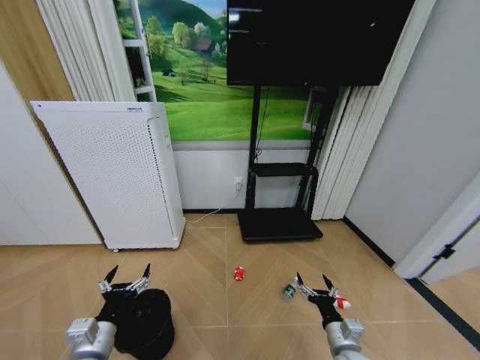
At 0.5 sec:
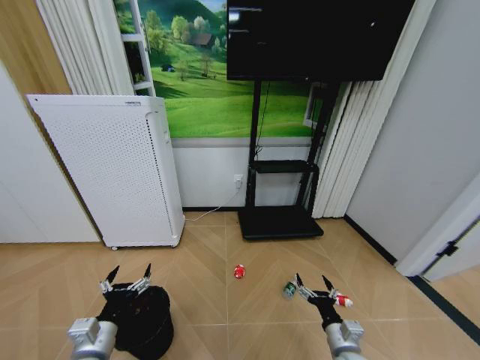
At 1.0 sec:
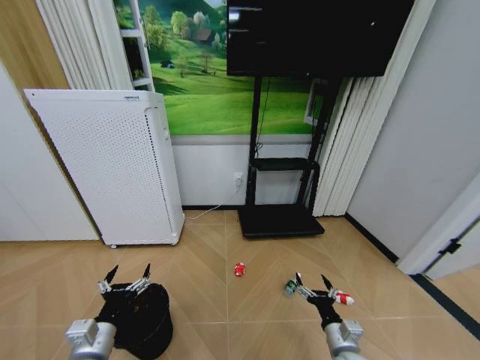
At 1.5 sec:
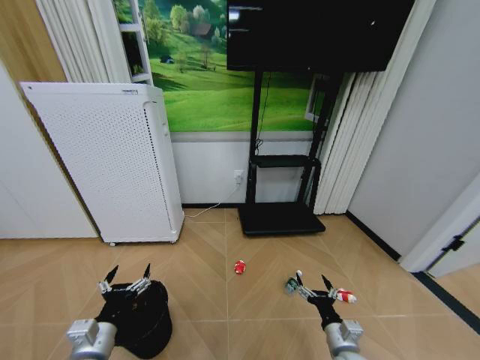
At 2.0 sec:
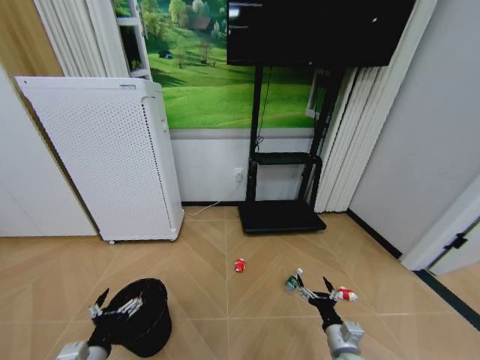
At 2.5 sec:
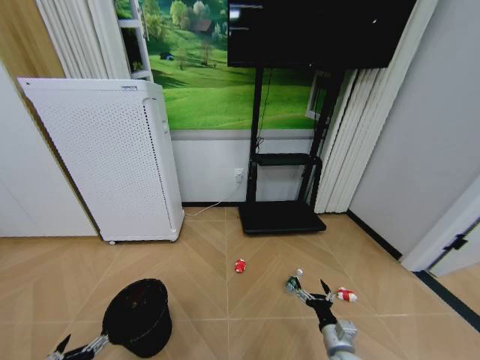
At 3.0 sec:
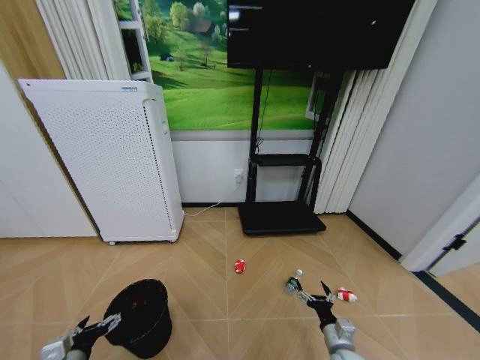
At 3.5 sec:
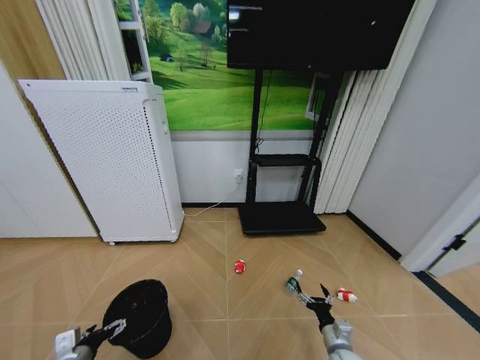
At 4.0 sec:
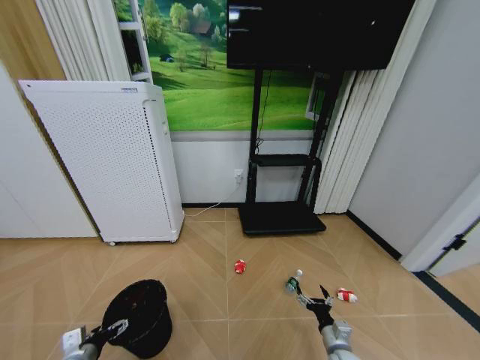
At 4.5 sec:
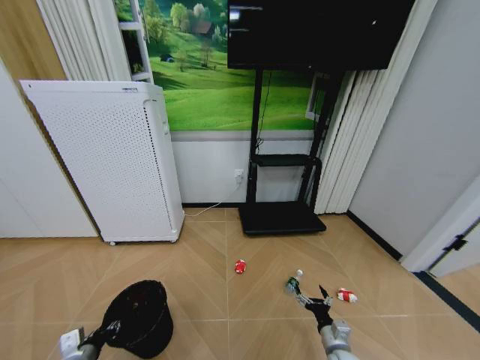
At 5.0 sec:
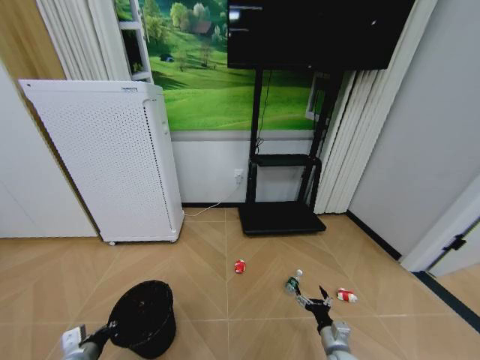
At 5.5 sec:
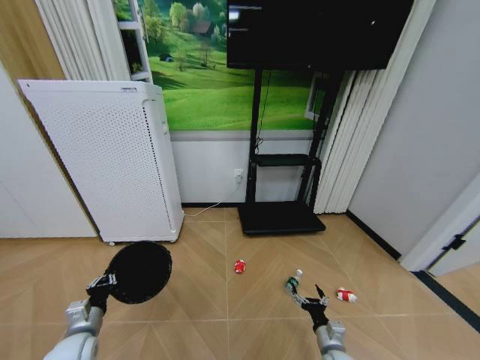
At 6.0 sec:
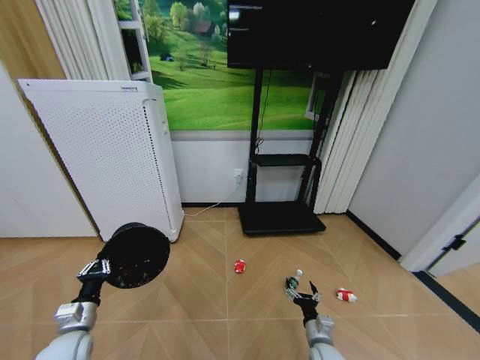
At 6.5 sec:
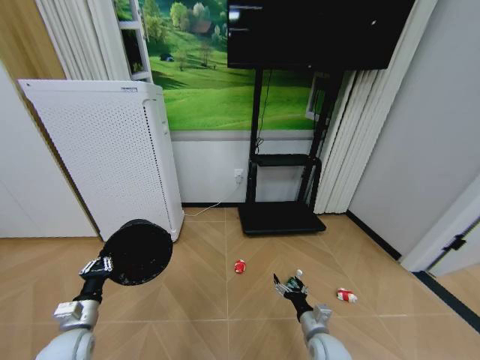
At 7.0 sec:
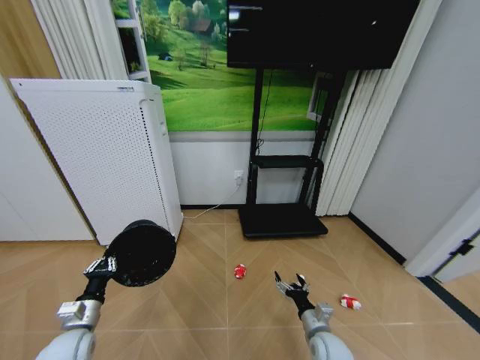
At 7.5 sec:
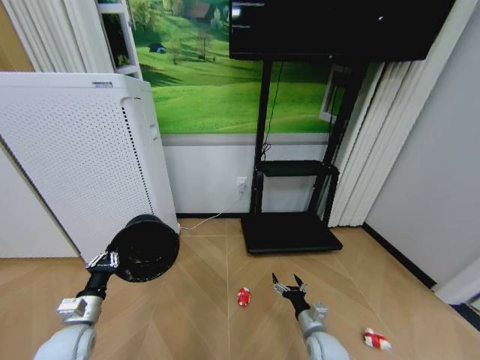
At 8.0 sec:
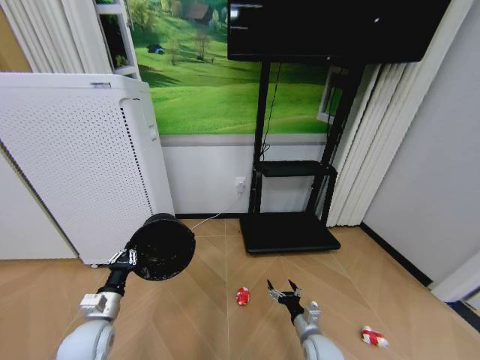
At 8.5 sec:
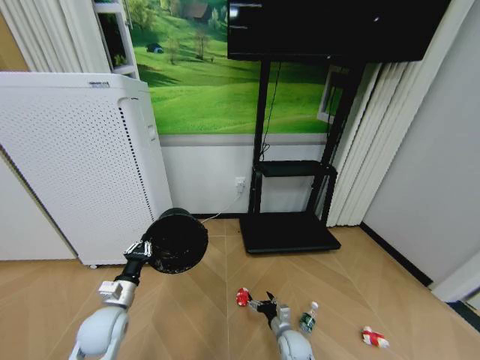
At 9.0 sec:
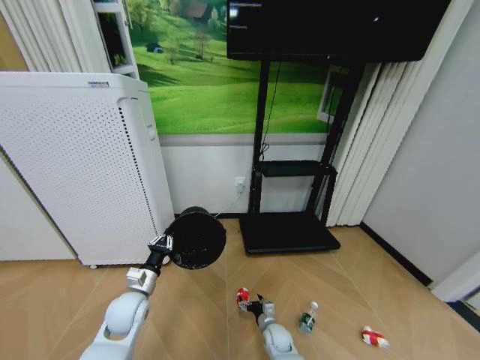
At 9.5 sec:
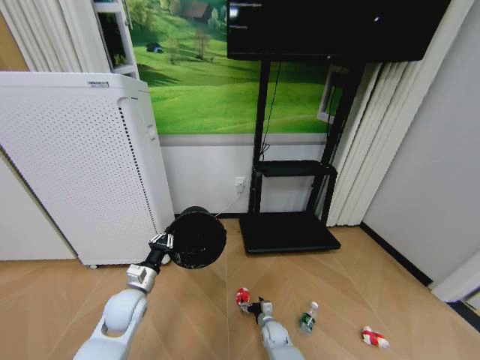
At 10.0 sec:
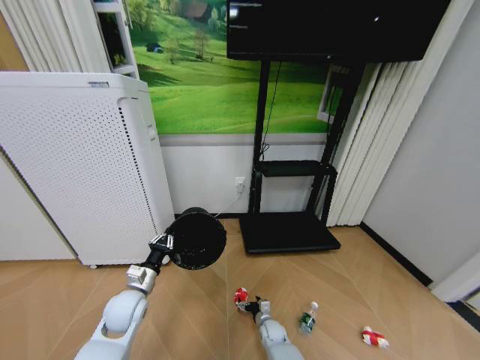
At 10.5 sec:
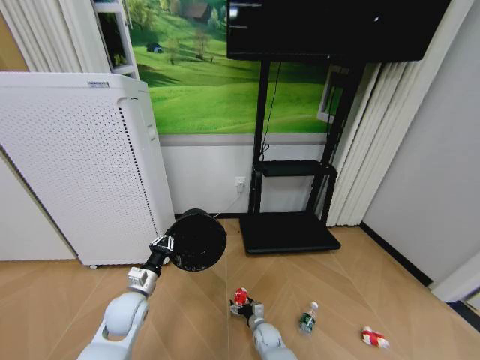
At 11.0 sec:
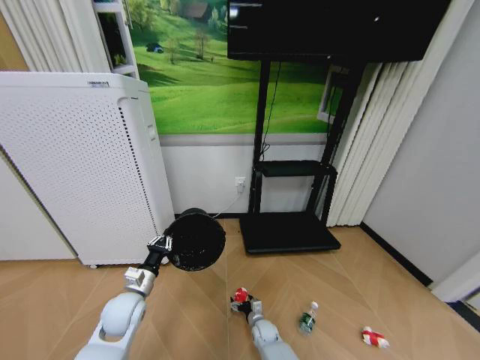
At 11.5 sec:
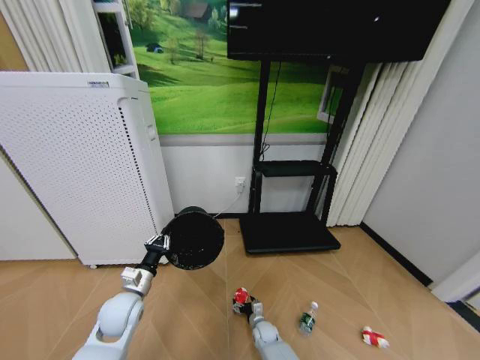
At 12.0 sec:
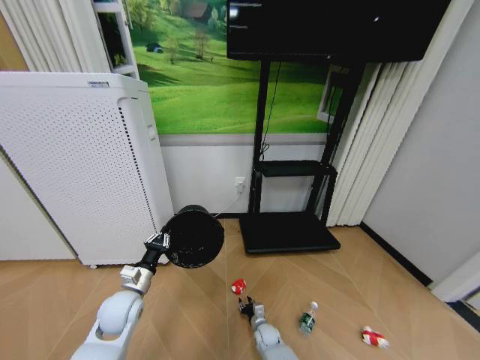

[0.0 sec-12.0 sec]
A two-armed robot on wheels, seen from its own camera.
Task of the whole recording: Pick up the trash bin and place the garbage on the floor into it.
0.0 sec to 2.0 sec: The grippers make only small movements.
2.0 sec to 4.0 sec: The right gripper shifts approximately 5 cm downward; the left gripper goes approximately 10 cm to the left and downward.
4.0 sec to 6.0 sec: The left gripper moves about 5 cm, and closes, while the right gripper goes roughly 5 cm to the left.
6.0 sec to 8.0 sec: The left gripper shifts about 5 cm to the right.
8.0 sec to 10.0 sec: The left gripper heads forward and to the right, covering some 10 cm. The right gripper shifts roughly 20 cm downward, to the left and forward.
10.0 sec to 12.0 sec: The right gripper closes.

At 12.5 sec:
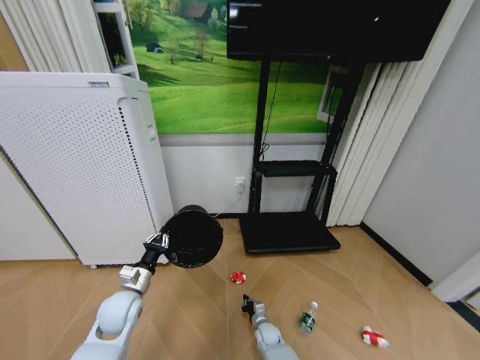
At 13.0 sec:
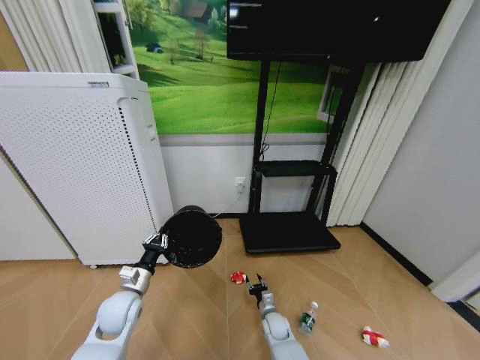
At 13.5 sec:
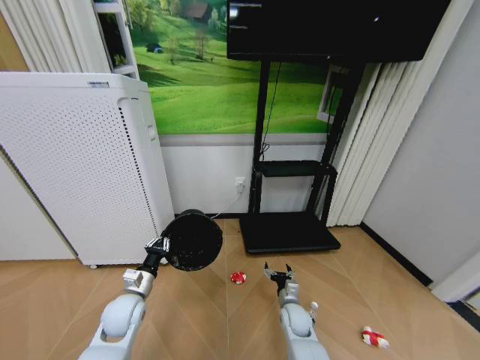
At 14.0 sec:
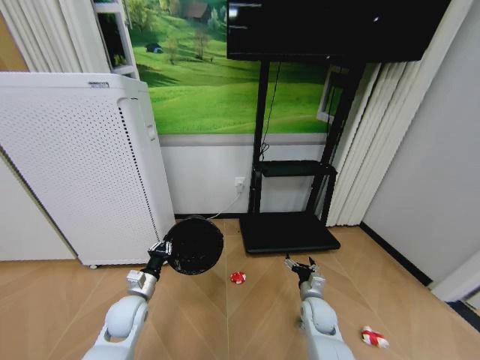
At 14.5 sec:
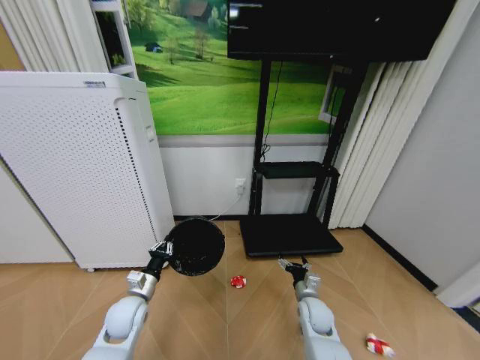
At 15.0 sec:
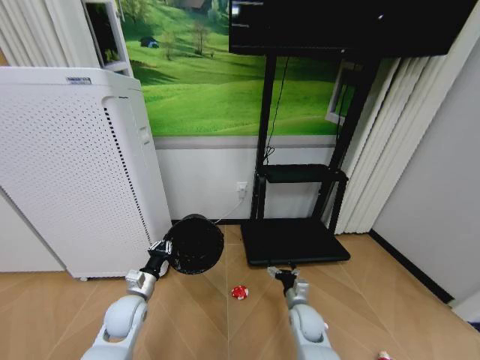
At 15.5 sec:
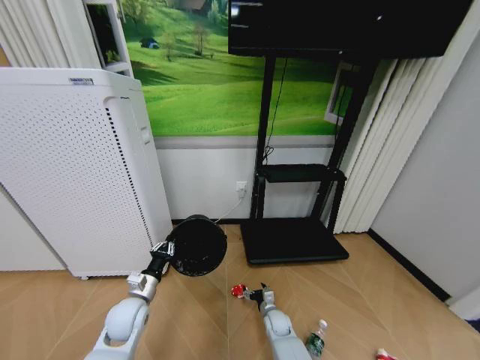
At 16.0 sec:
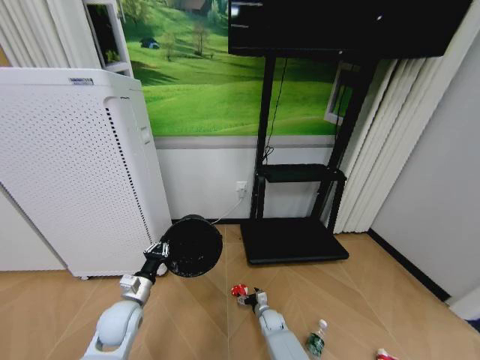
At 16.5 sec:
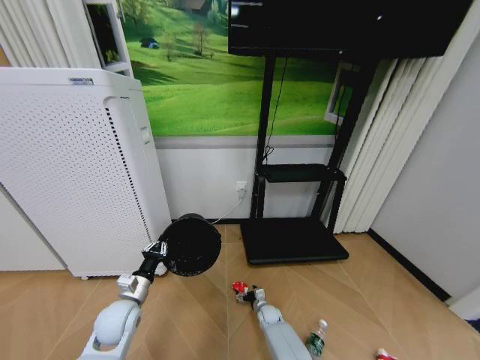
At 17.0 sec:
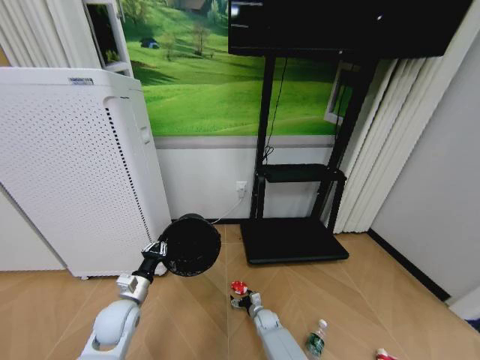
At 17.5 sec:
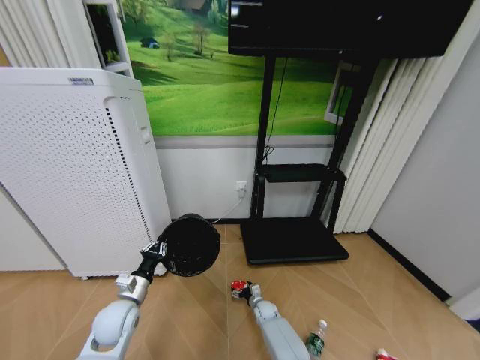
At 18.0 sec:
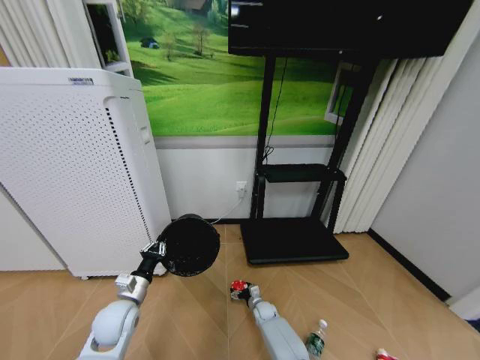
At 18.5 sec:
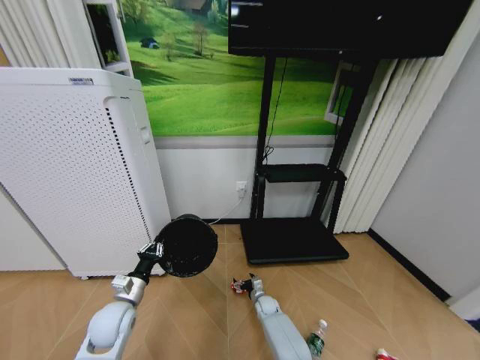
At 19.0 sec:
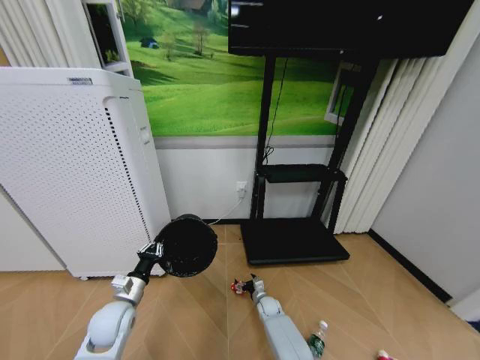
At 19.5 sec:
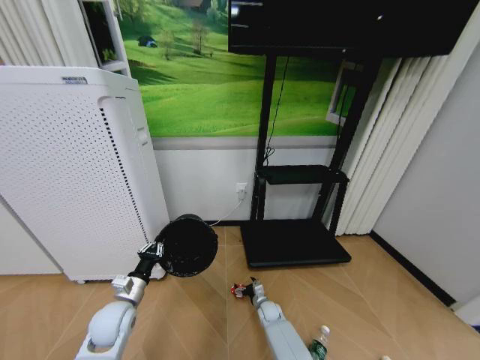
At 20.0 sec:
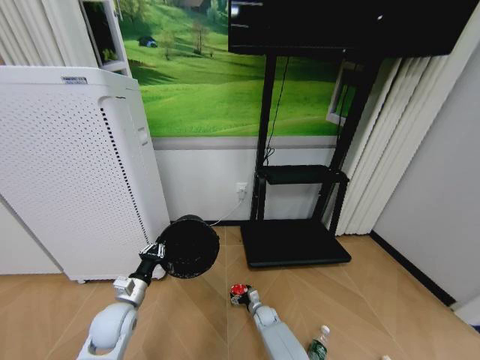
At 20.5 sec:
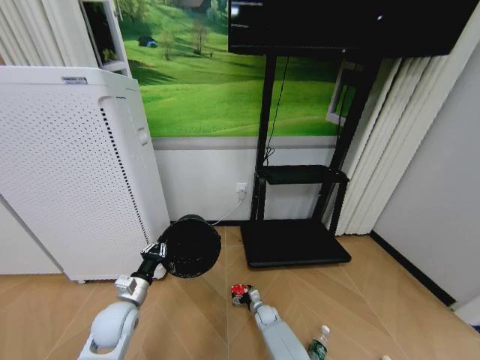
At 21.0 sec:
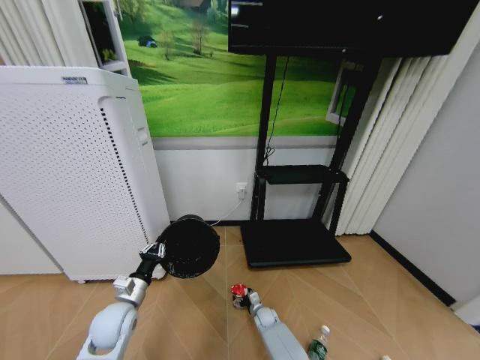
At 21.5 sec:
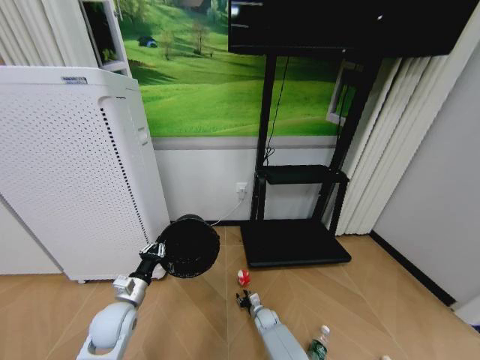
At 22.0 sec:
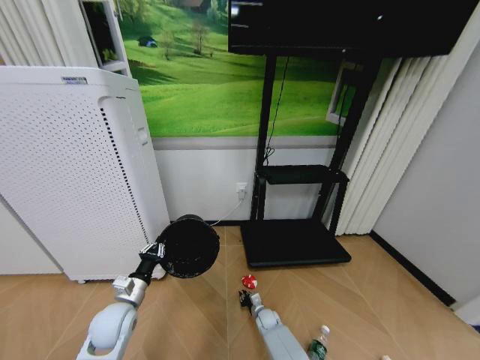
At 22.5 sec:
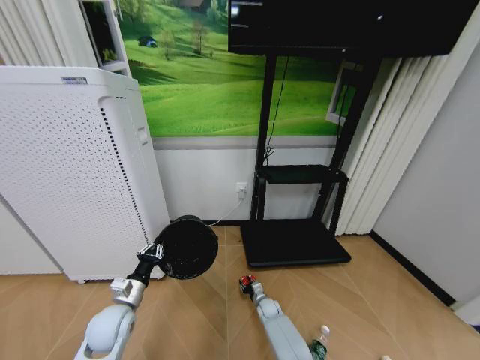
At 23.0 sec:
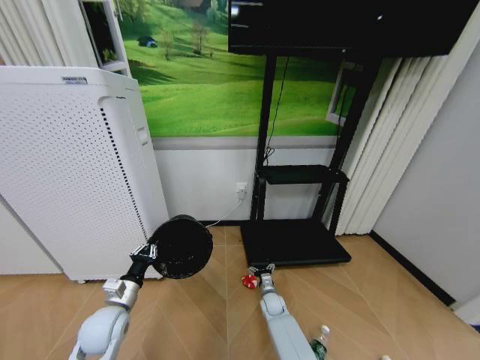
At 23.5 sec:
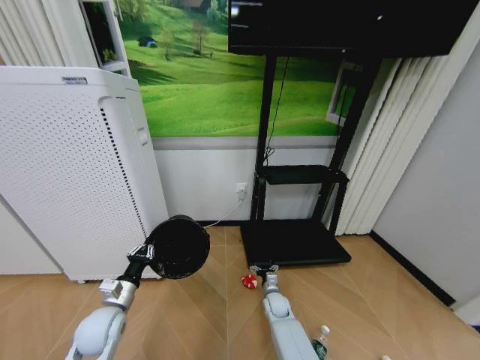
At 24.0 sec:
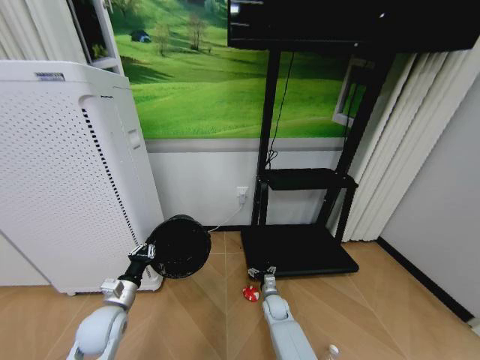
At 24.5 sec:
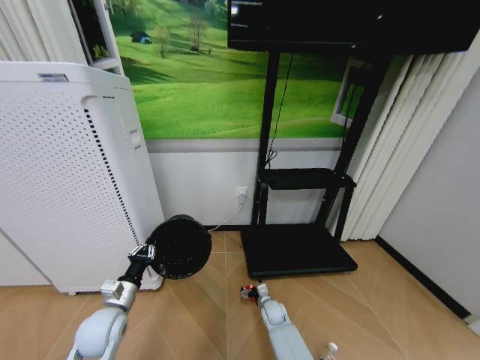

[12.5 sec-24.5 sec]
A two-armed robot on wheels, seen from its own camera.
Task of the whole recording: Pick up the trash bin and place the garbage on the floor into it.
12.5 sec to 14.5 sec: The right gripper heads upward and to the right, covering approximately 25 cm, and opens up.
14.5 sec to 16.5 sec: The right gripper goes roughly 20 cm downward and to the left.
16.5 sec to 20.5 sec: There are only small adjustments of the grippers.
20.5 sec to 22.5 sec: The right gripper closes up.
22.5 sec to 24.5 sec: The right gripper changes place by about 5 cm, and opens its fingers.

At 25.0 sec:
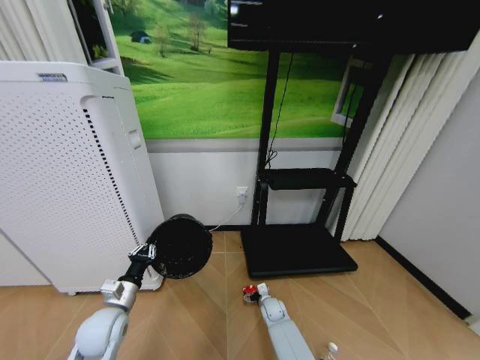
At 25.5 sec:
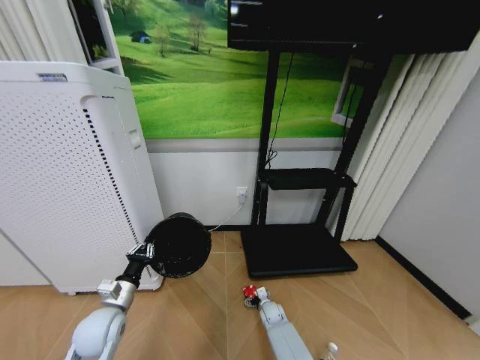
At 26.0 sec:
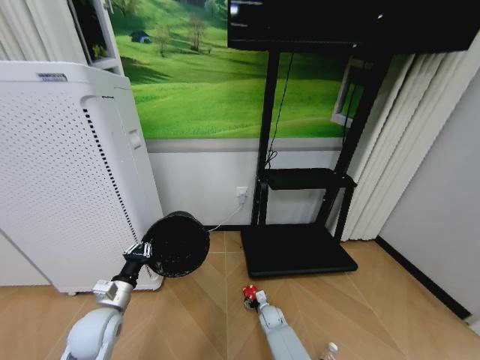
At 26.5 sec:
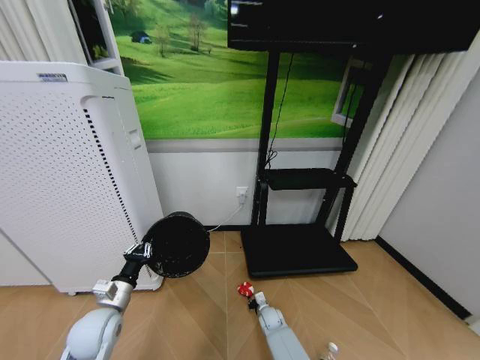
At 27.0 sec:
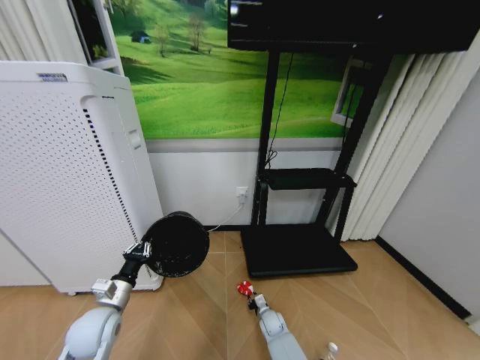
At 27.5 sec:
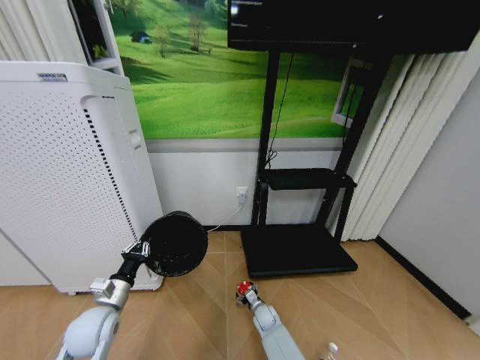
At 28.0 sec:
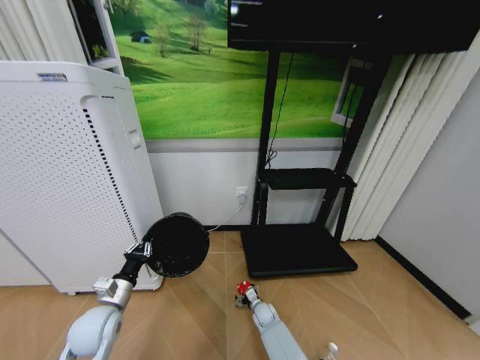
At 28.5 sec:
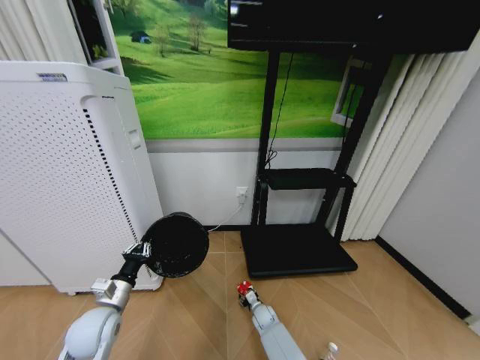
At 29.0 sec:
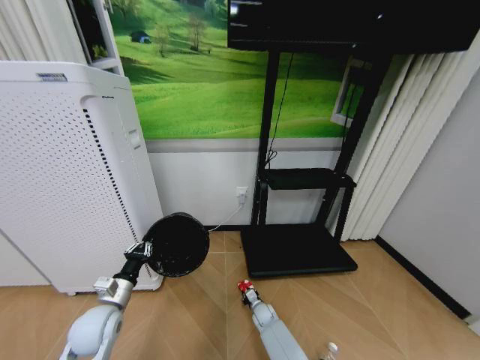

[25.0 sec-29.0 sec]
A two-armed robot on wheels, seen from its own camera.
Task of the whole recording: Pick up the trash bin and place the garbage on the floor into it.
25.0 sec to 27.0 sec: The right gripper closes its fingers.
